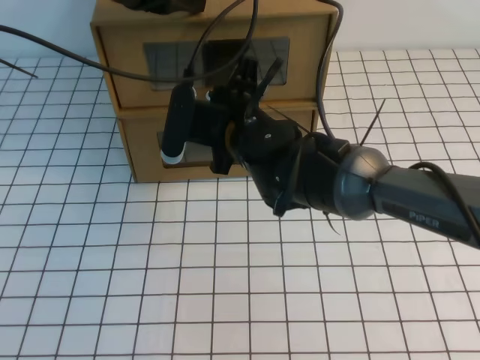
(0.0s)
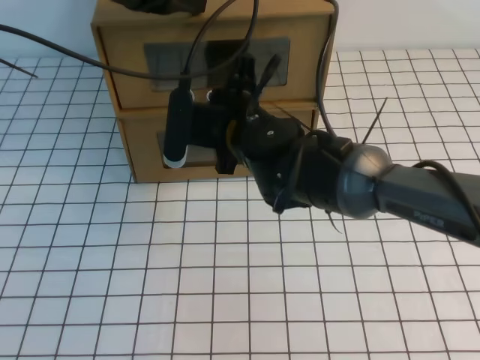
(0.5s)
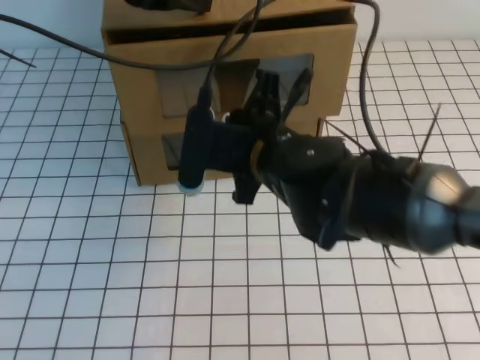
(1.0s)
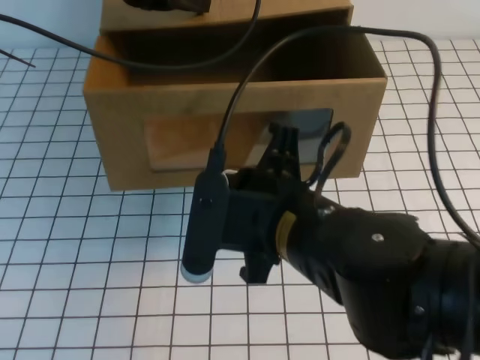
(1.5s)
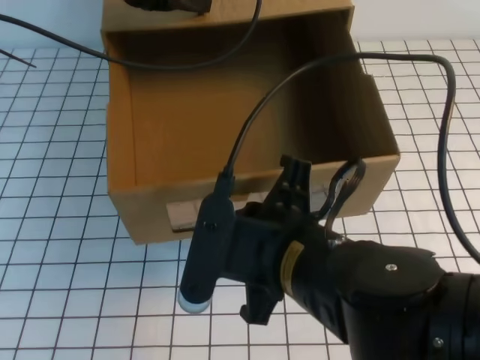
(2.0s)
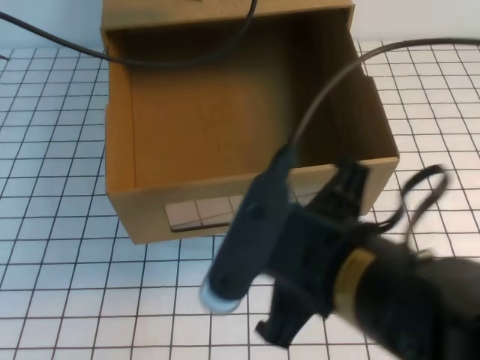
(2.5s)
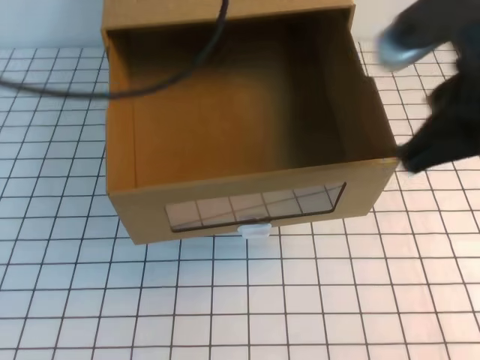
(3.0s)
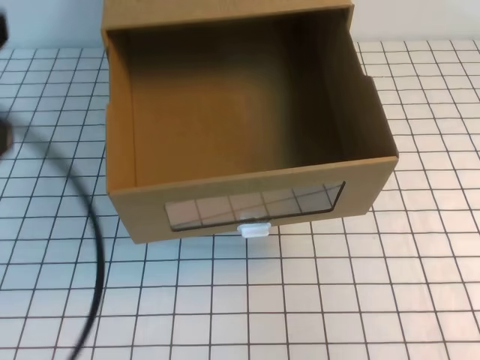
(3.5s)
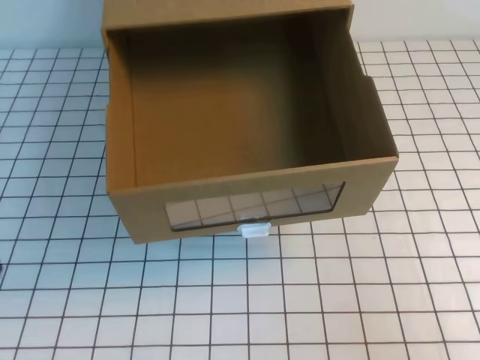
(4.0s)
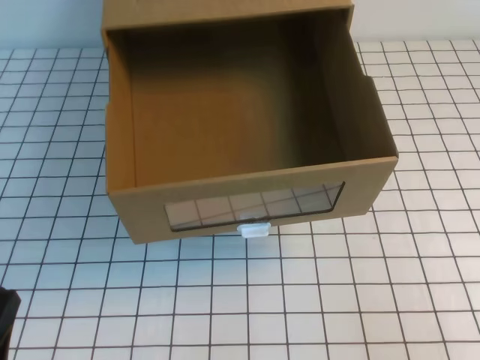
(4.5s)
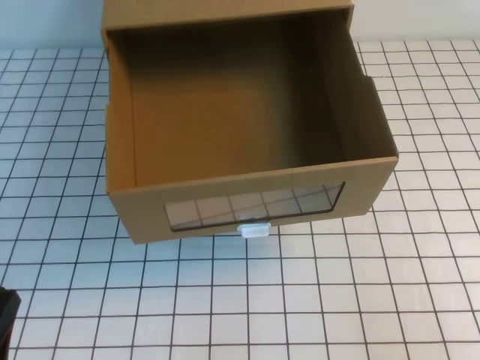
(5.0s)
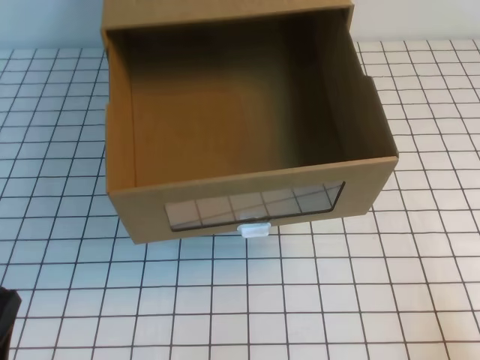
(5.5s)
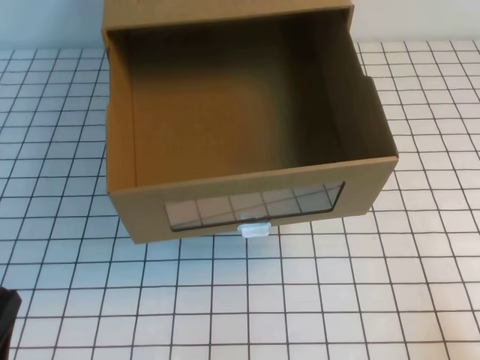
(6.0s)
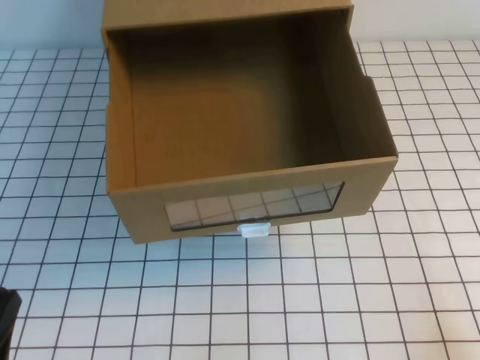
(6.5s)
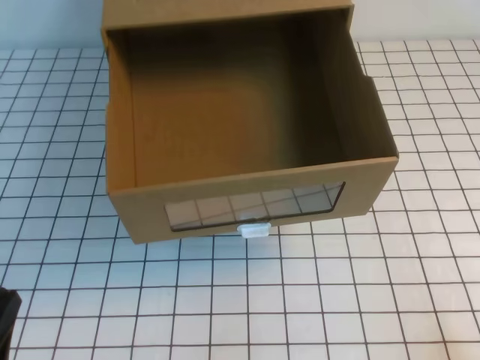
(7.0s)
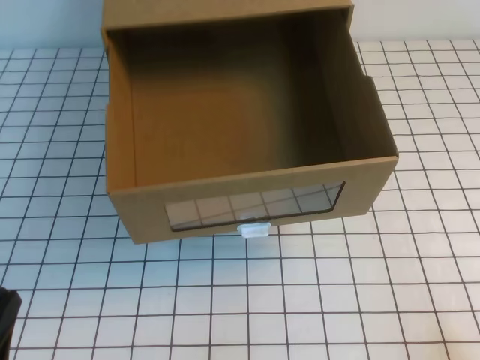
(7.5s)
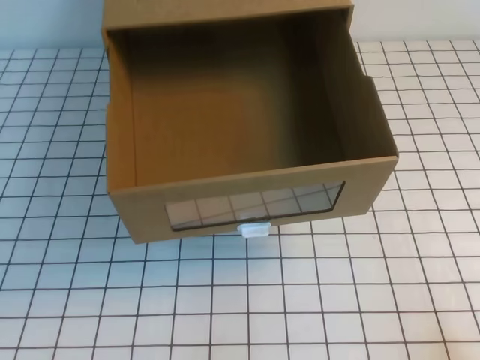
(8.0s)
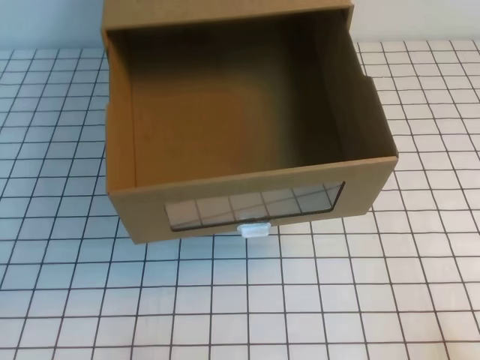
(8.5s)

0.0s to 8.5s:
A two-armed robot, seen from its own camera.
Task of the whole recording: open the shoebox on the white tablecloth.
Step, 0.0s to 8.5s: Open the shoe box.
0.0s to 2.0s: The right gripper heads backward, covering some 20 cm, and closes.
2.0s to 4.0s: The right gripper travels to the right by about 25 cm. The left gripper shifts roughly 35 cm backward.
4.0s to 6.5s: Both grippers move downward, roughly 10 cm.
